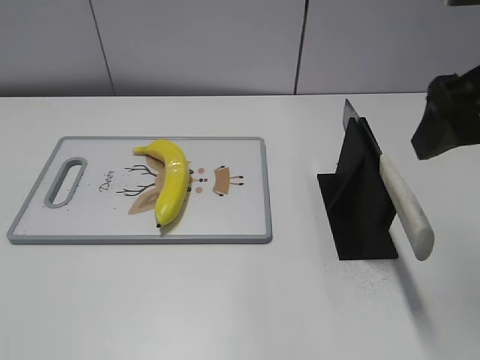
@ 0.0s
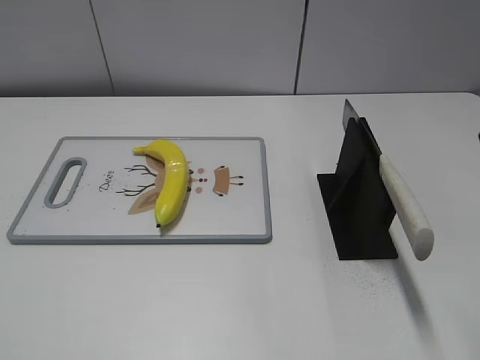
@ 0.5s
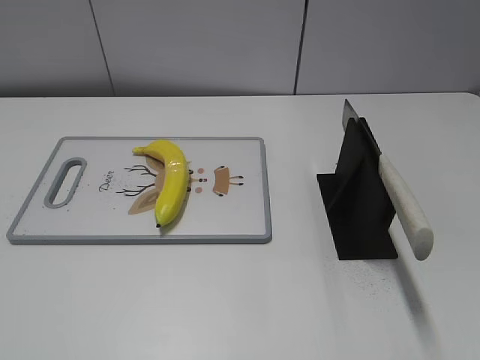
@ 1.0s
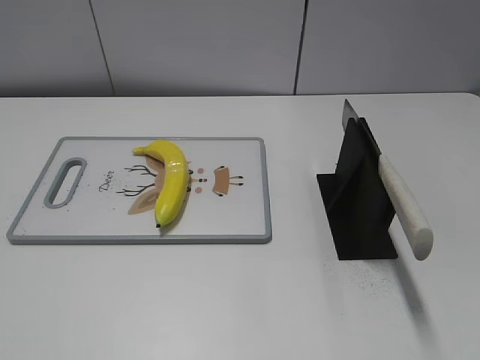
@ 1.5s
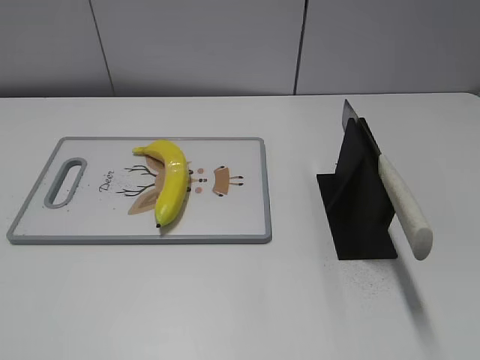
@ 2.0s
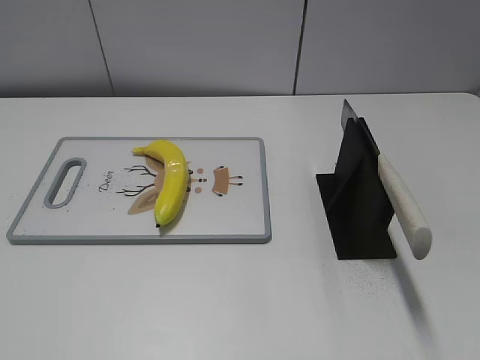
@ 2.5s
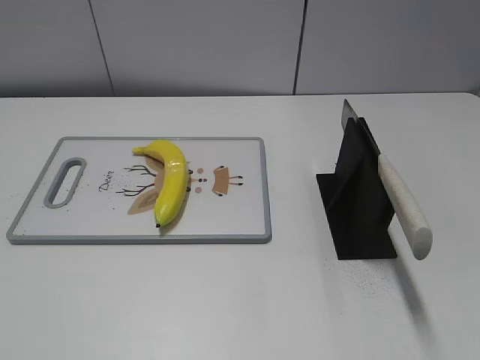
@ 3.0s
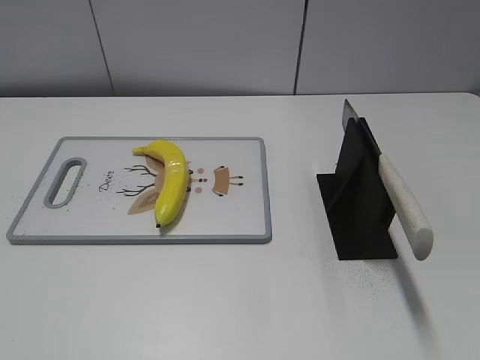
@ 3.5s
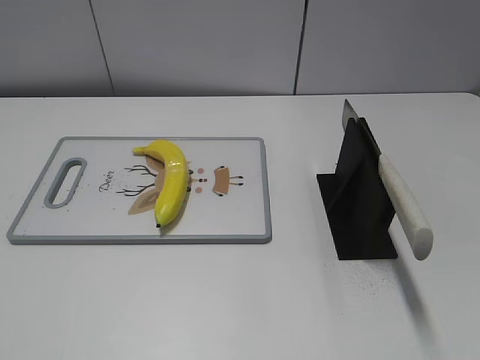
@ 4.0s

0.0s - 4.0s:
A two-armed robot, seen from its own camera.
Task of the whole recording: cut plastic banana.
Step, 0.0s - 3.5s: Place the knife on the storage rack with your right hand.
0.0s - 2.0s: The right gripper goes roughly 25 cm backward and to the right.
